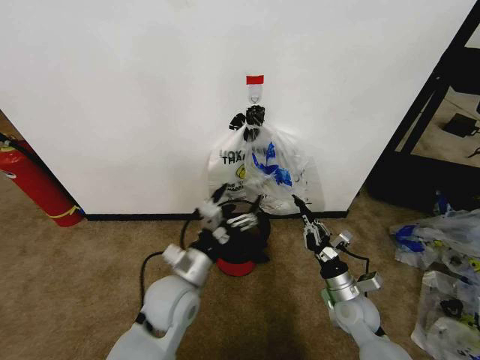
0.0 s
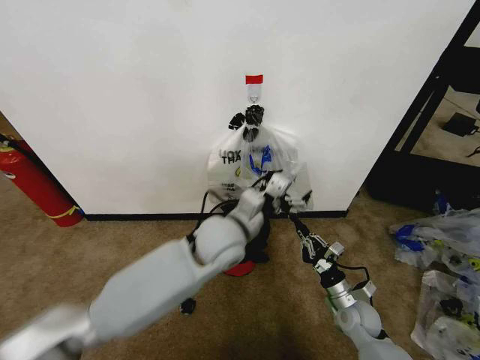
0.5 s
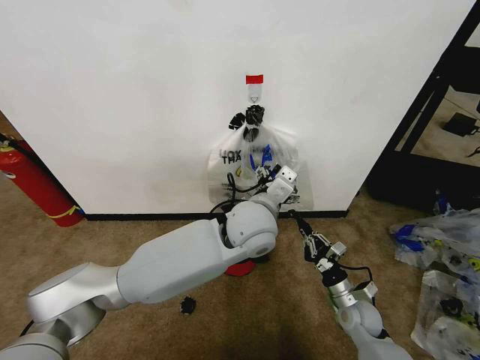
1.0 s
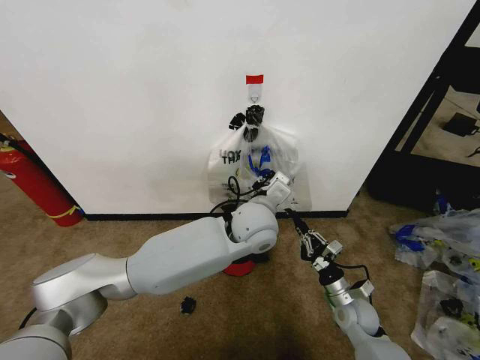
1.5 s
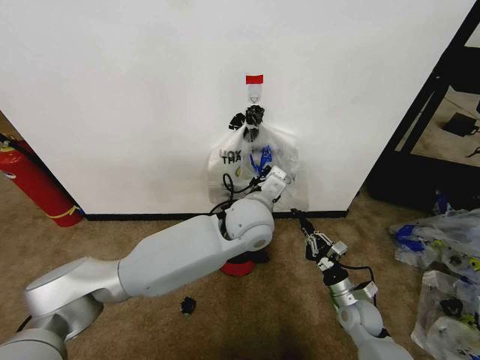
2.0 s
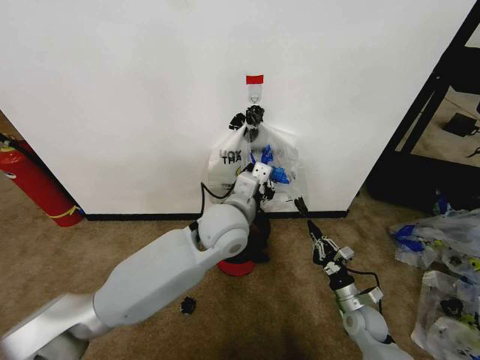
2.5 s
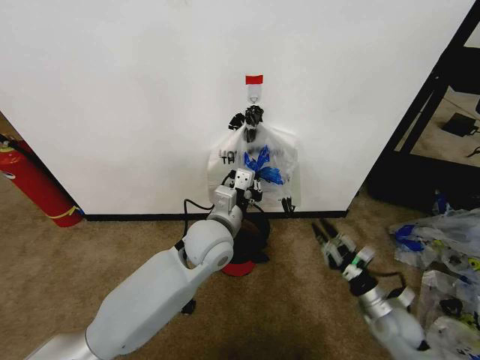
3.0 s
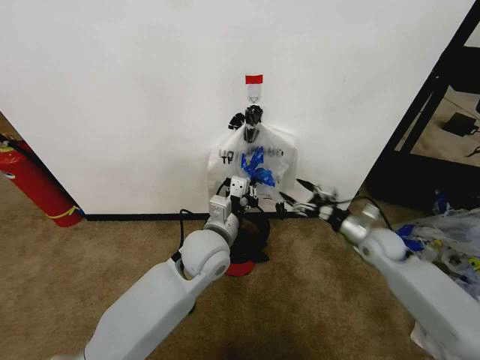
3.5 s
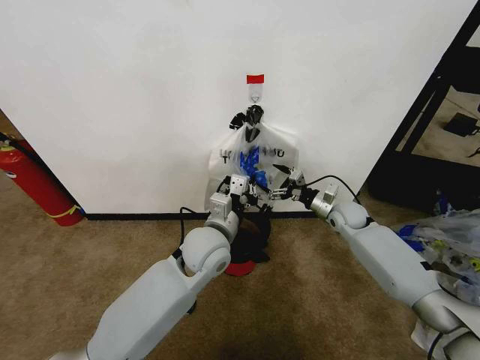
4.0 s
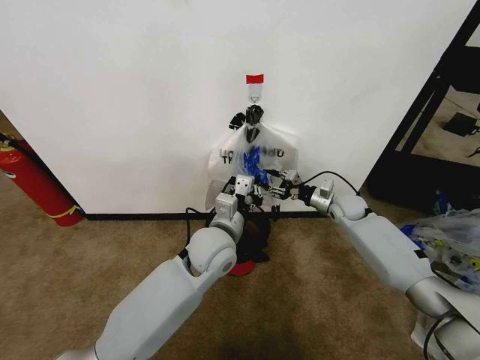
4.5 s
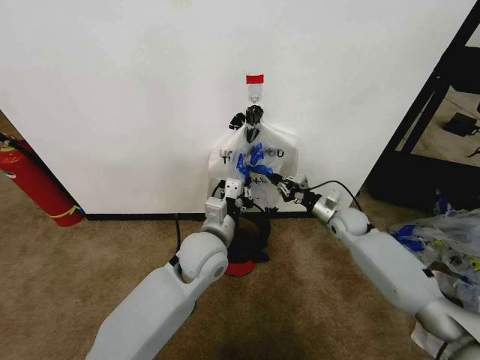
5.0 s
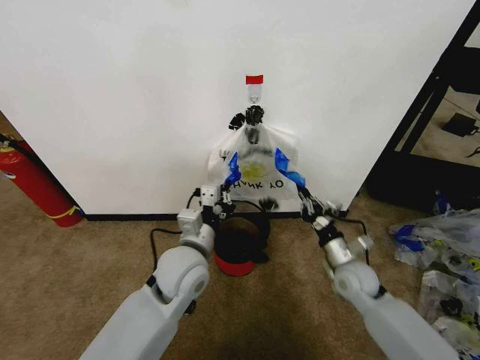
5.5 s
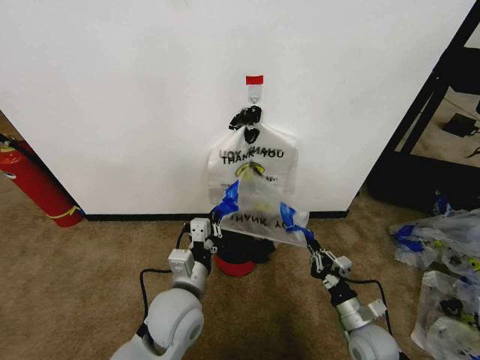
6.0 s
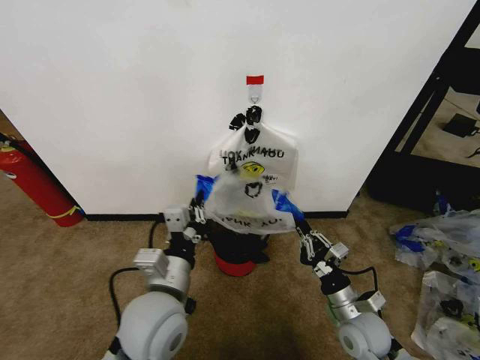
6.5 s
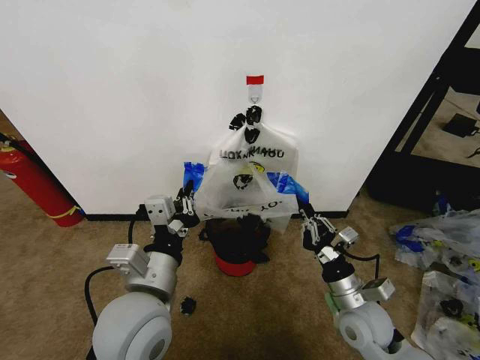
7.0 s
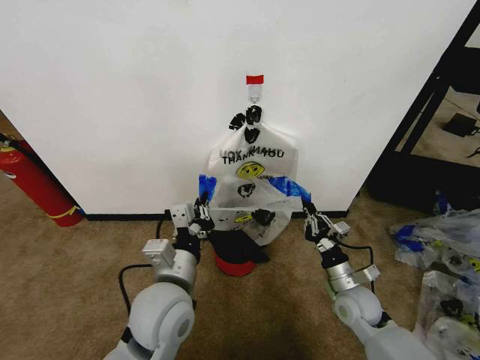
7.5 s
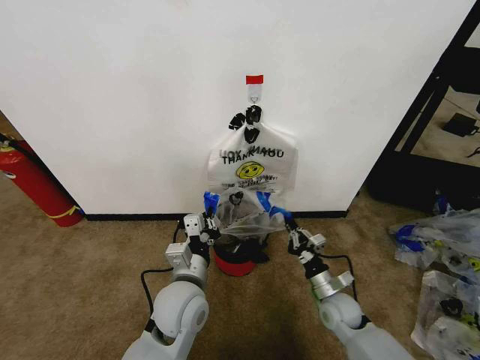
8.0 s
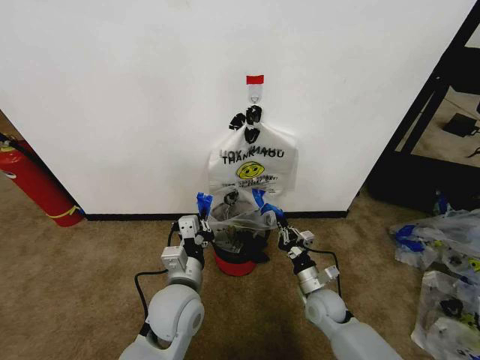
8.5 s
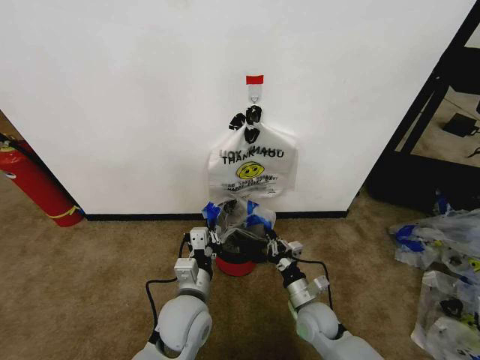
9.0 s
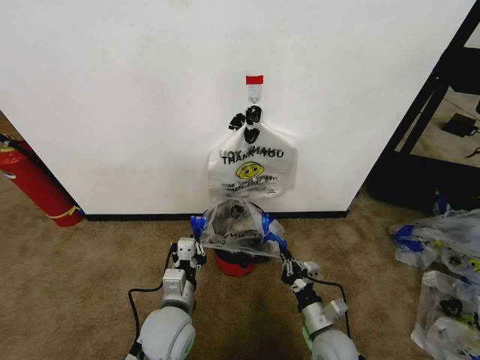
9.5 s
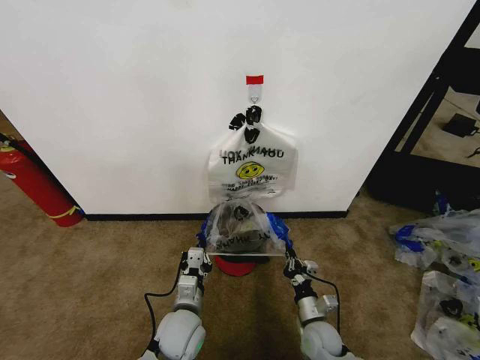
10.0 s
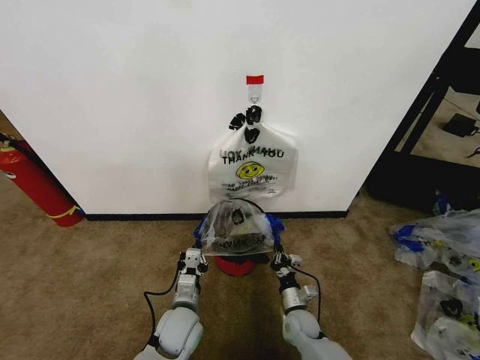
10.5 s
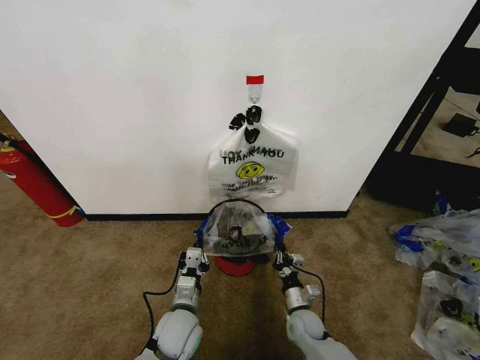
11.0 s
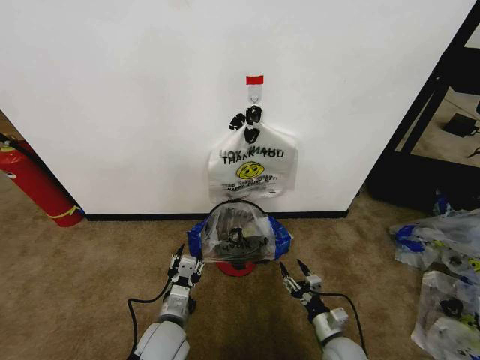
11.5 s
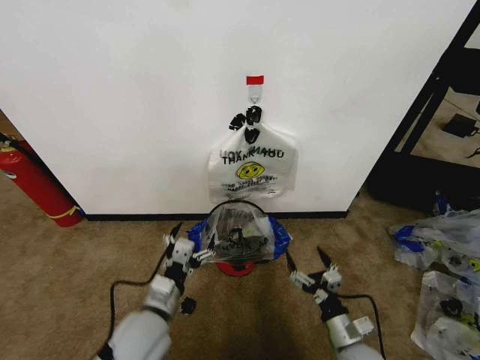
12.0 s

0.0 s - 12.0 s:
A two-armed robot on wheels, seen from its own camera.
Task of the whole recording: Pick up the garbage bag from the wall and place it over the trash bin.
0.0 s - 2.0 s: The left gripper heads to the right, forward and upward, covering some 20 cm, and closes its fingers; the right gripper changes place by some 5 cm.
2.0 s - 4.0 s: The left gripper shifts about 10 cm to the left and downward; the right gripper heads forward and upward, covering approximately 25 cm, and opens.
4.0 s - 6.0 s: The left gripper is displaced backward and to the left by roughly 10 cm. Meanwhile the right gripper travels backward by roughly 30 cm, and closes.
6.0 s - 8.0 s: The left gripper reaches about 10 cm upward, then returns. The right gripper heads forward, covering approximately 10 cm, and travels upward and back again, some 10 cm each way.
8.0 s - 10.0 s: The right gripper is displaced downward and to the left by approximately 10 cm, while the left gripper goes some 10 cm downward.
10.0 s - 12.0 s: The right gripper is displaced upward, backward and to the right by some 10 cm, and opens up. The left gripper goes some 10 cm upward and to the left, and opens.

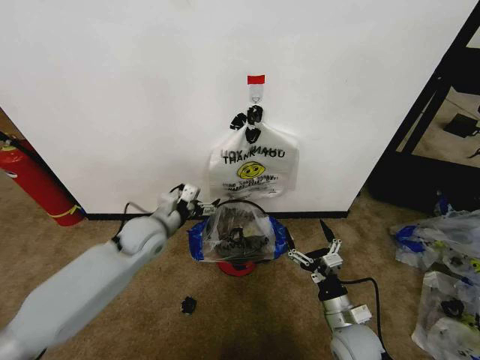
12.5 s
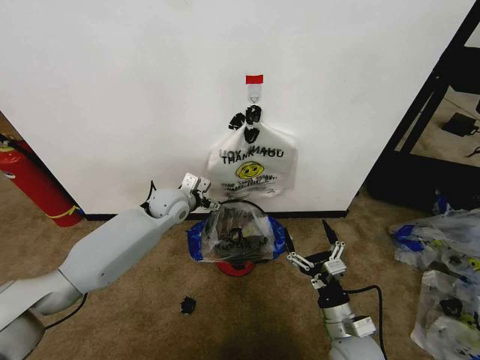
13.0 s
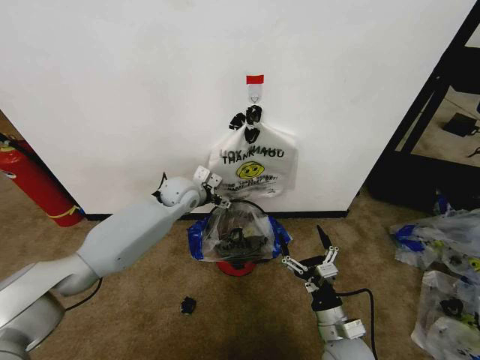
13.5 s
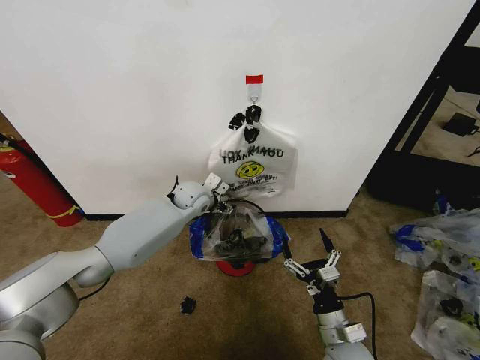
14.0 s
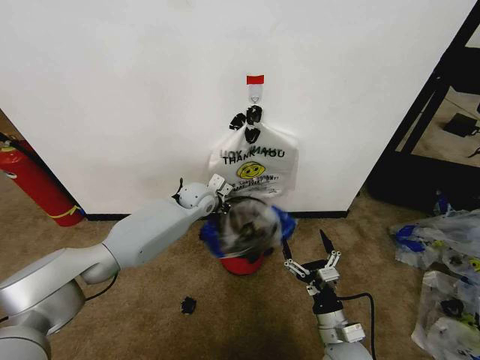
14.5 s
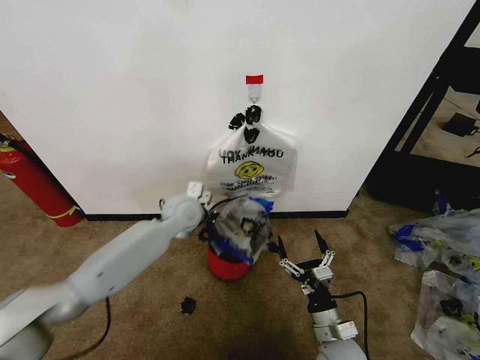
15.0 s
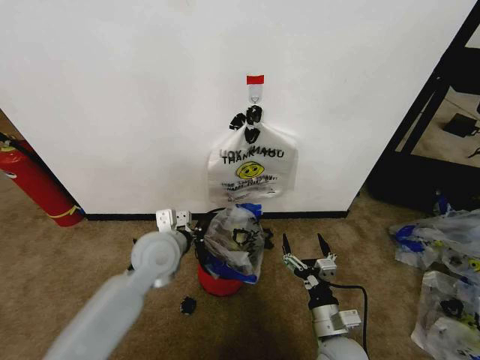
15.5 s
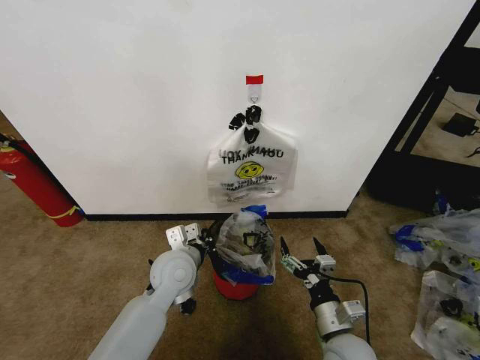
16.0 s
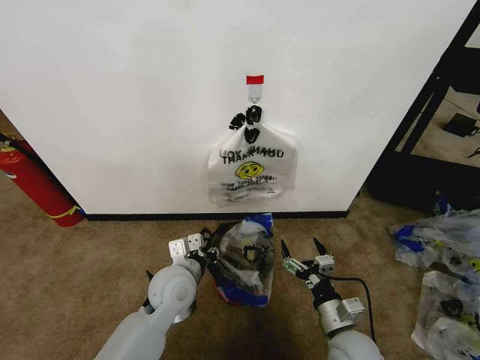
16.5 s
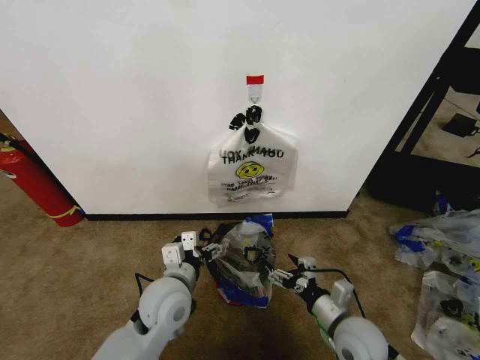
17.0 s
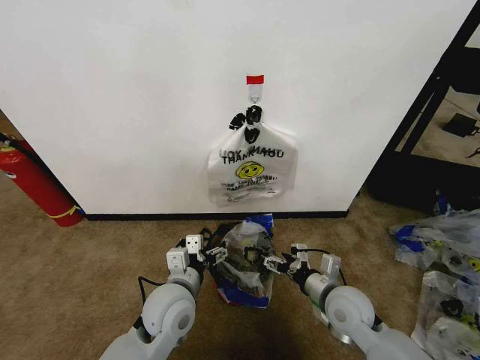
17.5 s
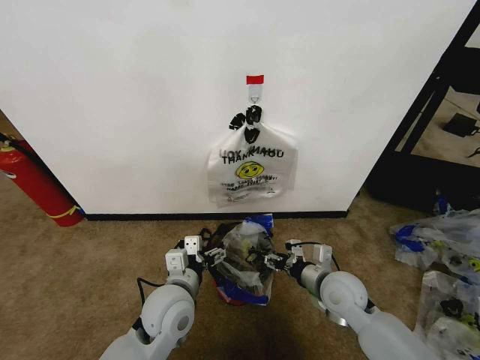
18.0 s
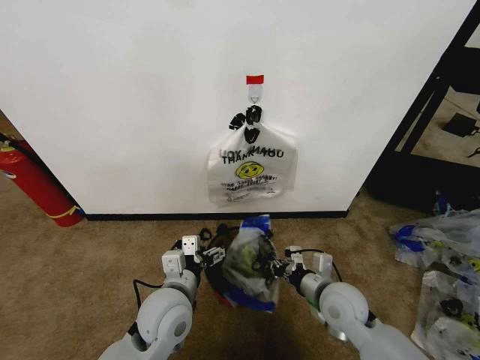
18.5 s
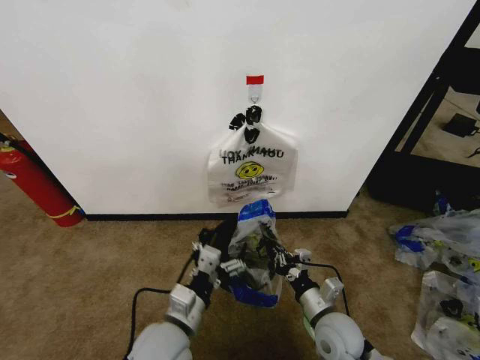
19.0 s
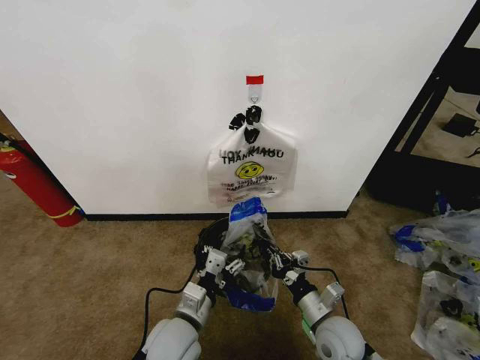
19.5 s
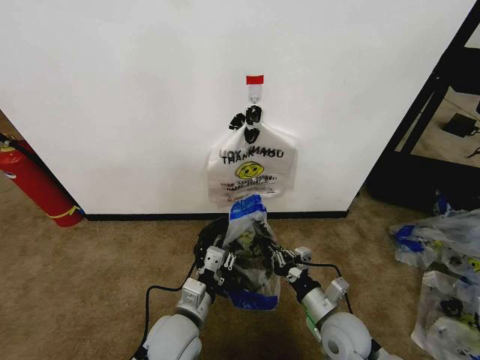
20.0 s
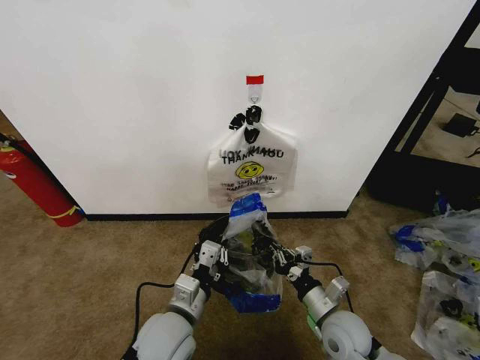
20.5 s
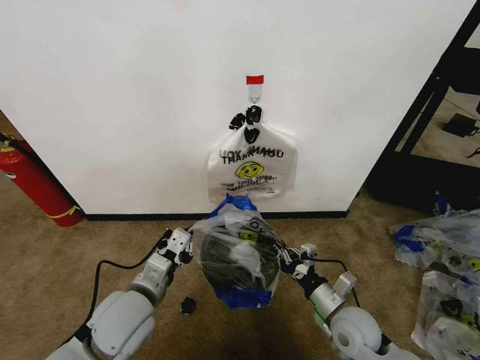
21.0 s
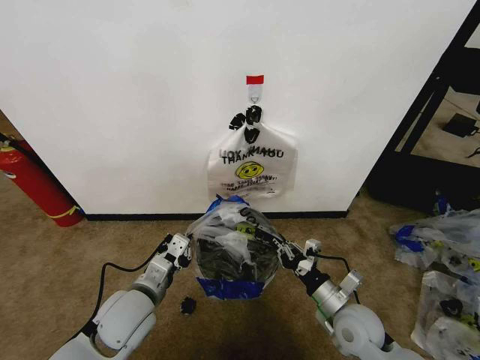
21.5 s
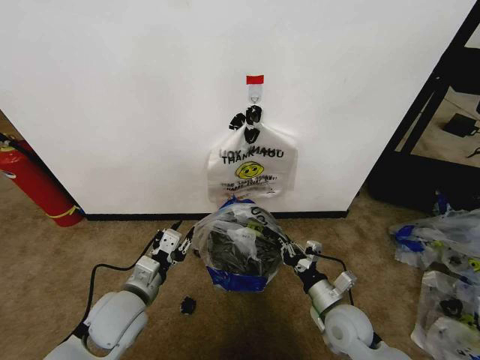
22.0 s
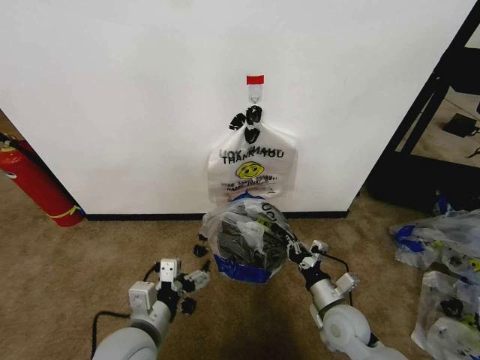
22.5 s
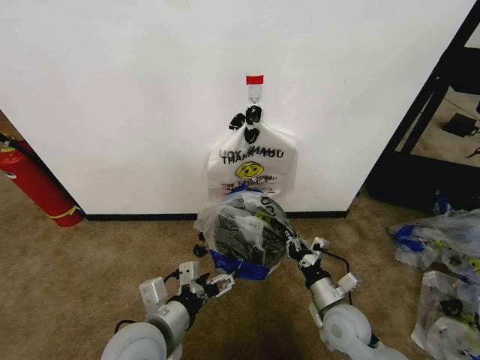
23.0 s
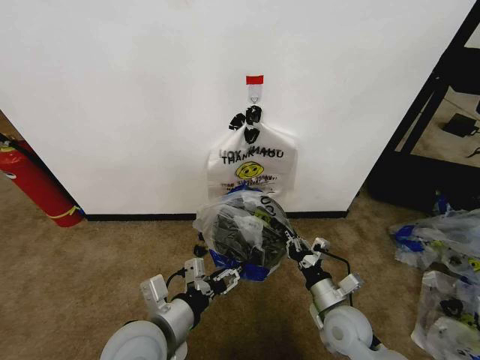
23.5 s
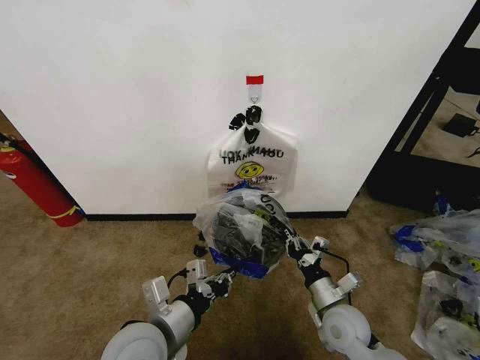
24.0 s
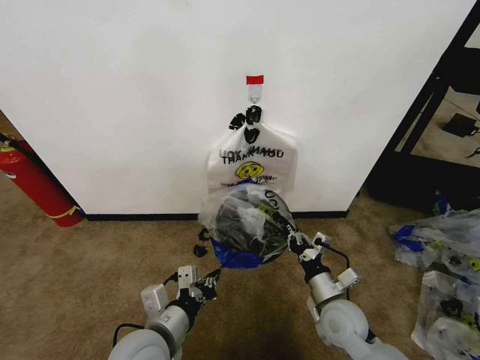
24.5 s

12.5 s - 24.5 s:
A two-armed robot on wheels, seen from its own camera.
Task of the whole recording: Pick up the garbage bag from the wall and place it over the trash bin.
12.5 s - 14.5 s: The left gripper heads forward and to the right, covering some 15 cm, and closes up.
14.5 s - 16.5 s: The left gripper shifts about 25 cm backward.
16.5 s - 18.5 s: The left gripper is displaced backward by approximately 5 cm, and opens its fingers; the right gripper heads forward, covering some 10 cm, and closes.
18.5 s - 20.5 s: The right gripper shifts by some 5 cm. Meanwhile the left gripper closes.
20.5 s - 22.5 s: The left gripper heads to the left, covering roughly 5 cm, and opens.
22.5 s - 24.5 s: The left gripper closes.

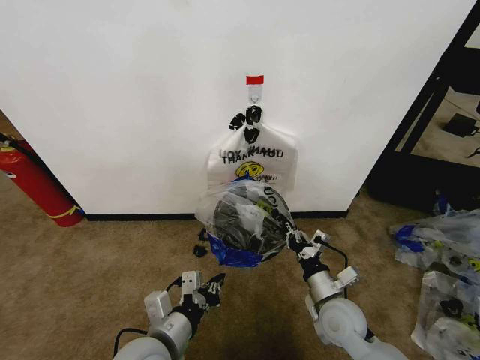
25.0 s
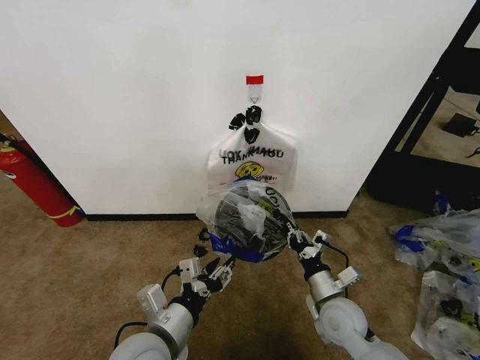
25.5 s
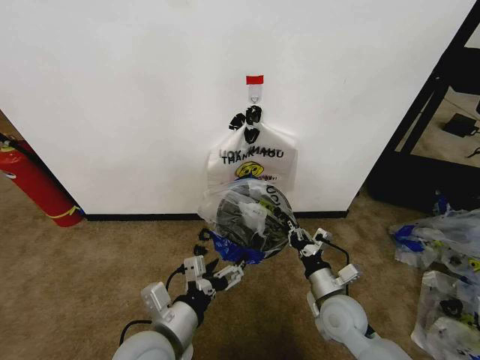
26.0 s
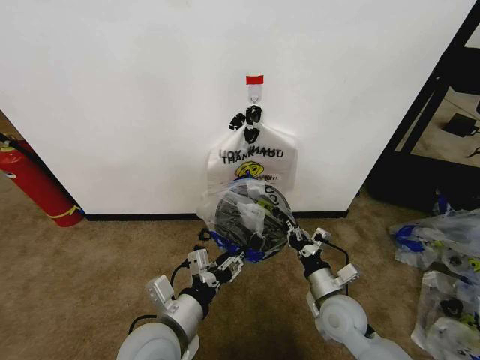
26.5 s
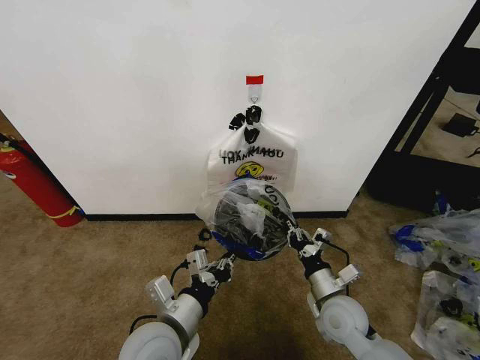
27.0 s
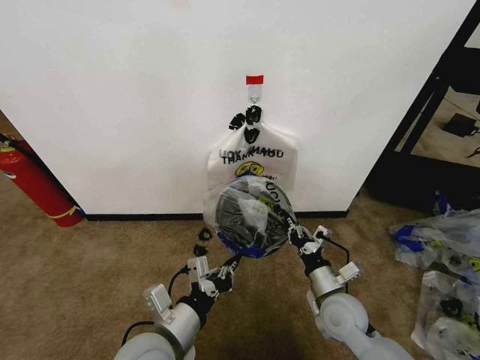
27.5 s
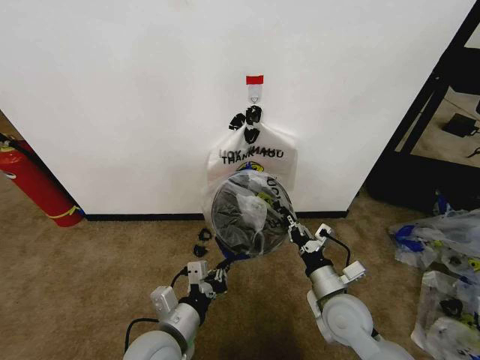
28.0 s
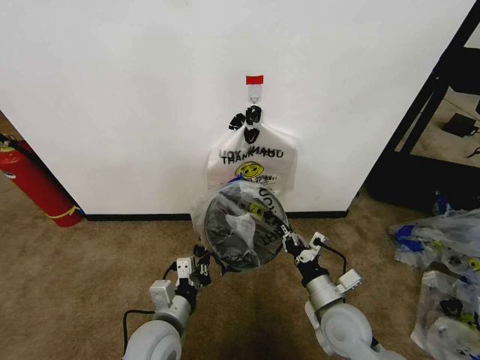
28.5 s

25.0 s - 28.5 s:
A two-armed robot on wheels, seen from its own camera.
Task of the whole recording: Pick up the garbage bag from the wall and place it over the trash bin.
25.0 s - 27.0 s: The left gripper opens, then closes again.
27.0 s - 28.5 s: The left gripper is displaced downward by approximately 5 cm.
